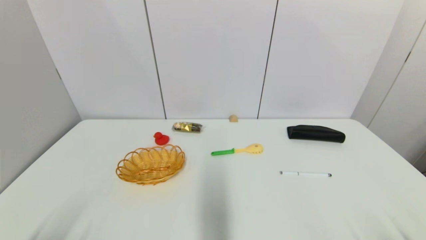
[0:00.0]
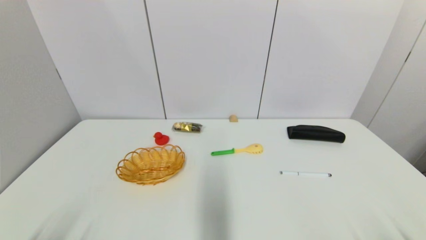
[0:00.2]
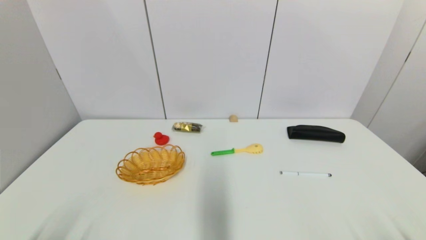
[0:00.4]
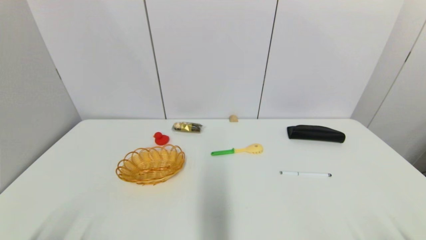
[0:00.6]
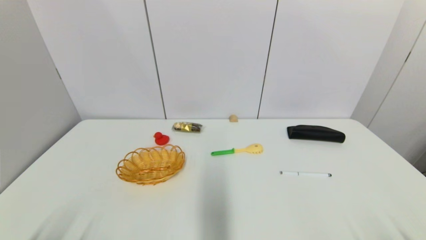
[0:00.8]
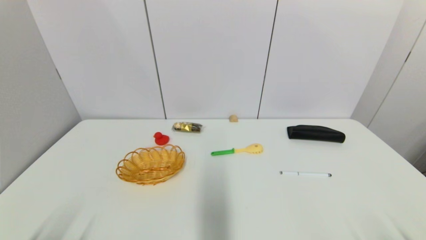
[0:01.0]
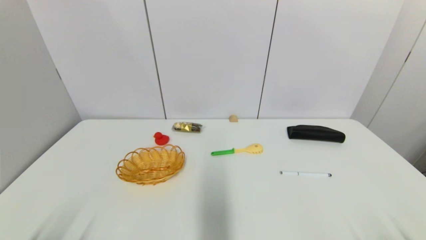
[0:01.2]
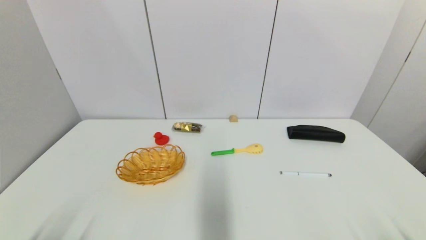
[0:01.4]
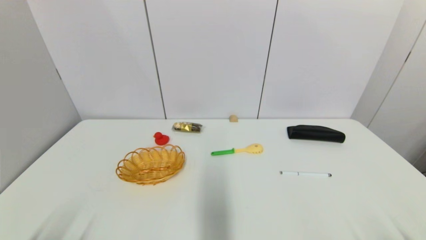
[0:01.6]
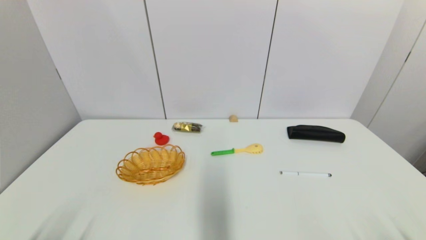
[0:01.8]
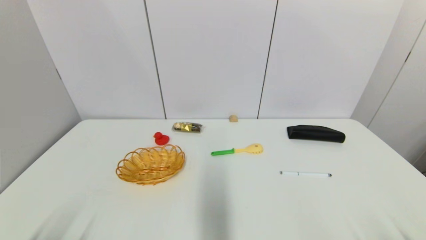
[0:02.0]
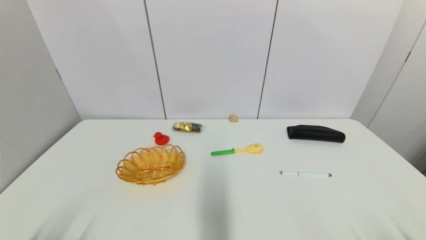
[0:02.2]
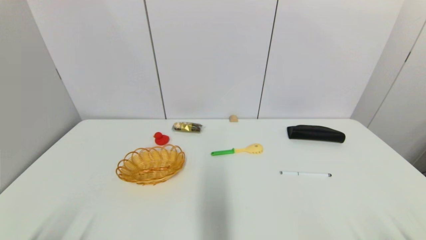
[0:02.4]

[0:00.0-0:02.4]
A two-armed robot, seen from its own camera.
0:01.2 to 0:02.4: Both grippers stay put.
